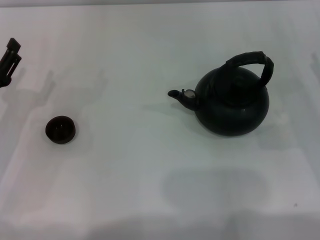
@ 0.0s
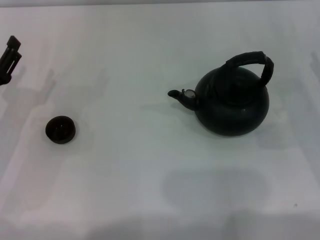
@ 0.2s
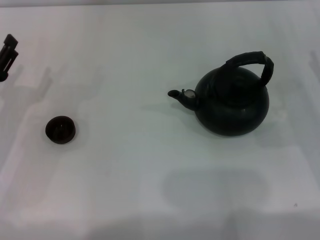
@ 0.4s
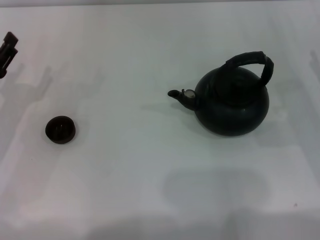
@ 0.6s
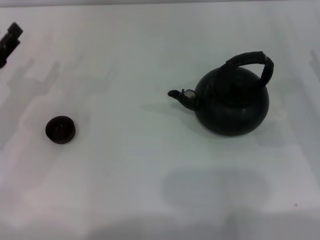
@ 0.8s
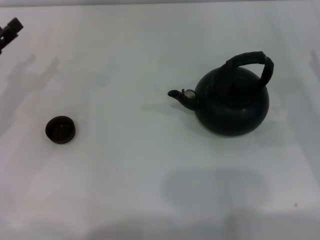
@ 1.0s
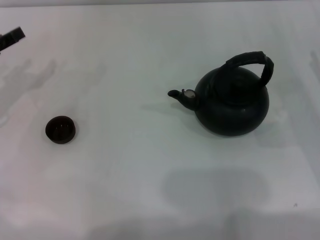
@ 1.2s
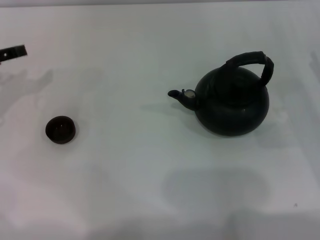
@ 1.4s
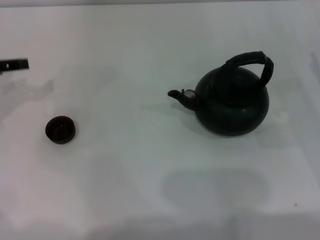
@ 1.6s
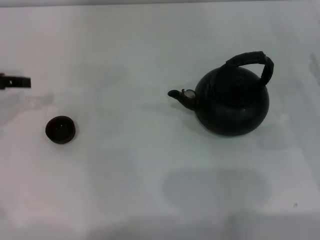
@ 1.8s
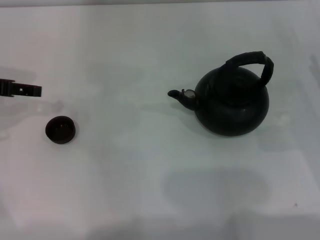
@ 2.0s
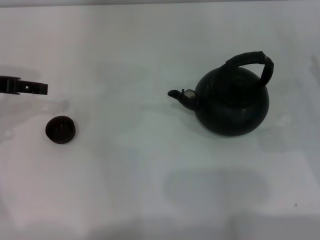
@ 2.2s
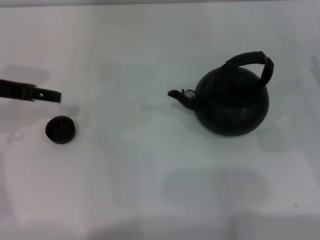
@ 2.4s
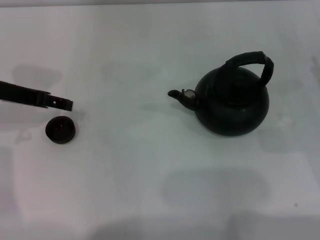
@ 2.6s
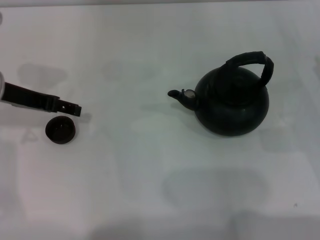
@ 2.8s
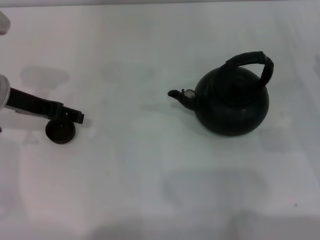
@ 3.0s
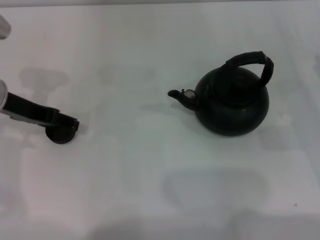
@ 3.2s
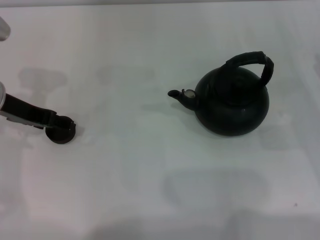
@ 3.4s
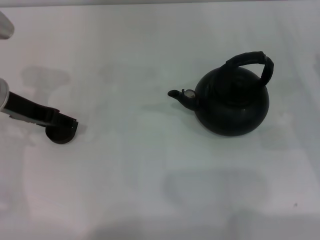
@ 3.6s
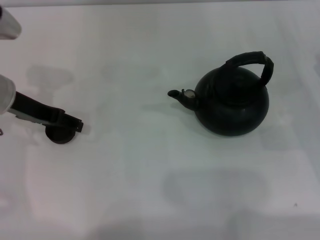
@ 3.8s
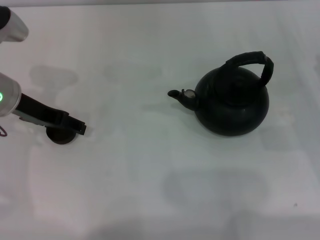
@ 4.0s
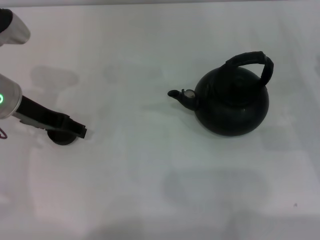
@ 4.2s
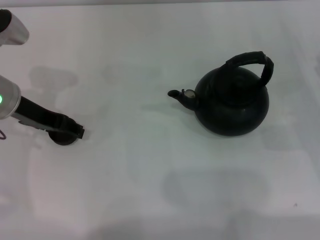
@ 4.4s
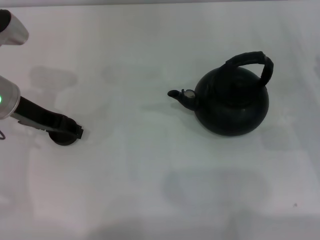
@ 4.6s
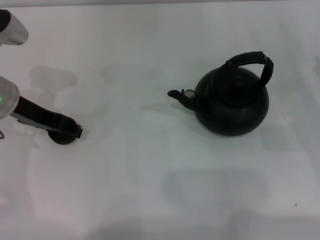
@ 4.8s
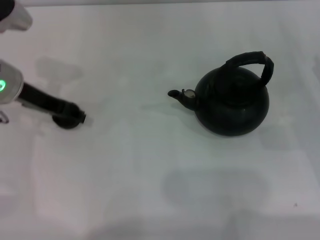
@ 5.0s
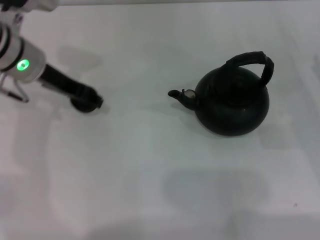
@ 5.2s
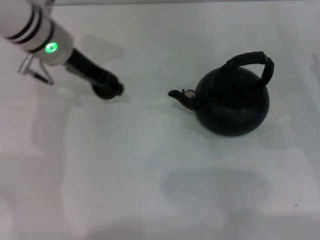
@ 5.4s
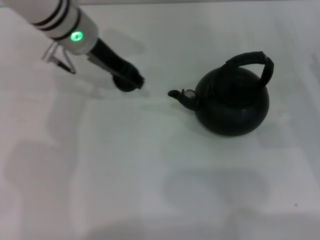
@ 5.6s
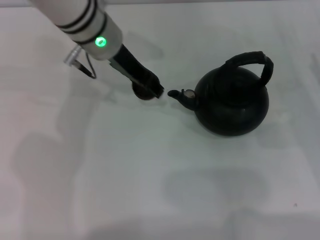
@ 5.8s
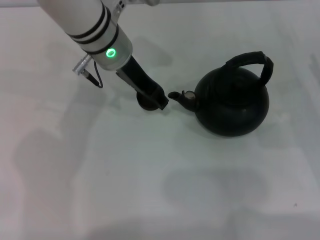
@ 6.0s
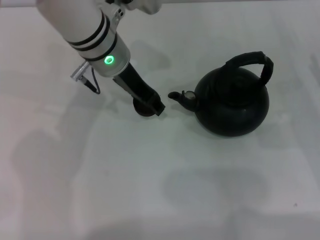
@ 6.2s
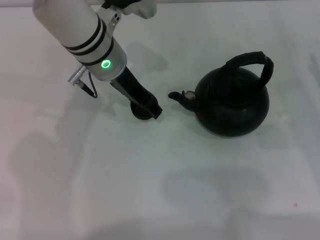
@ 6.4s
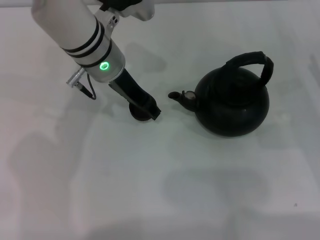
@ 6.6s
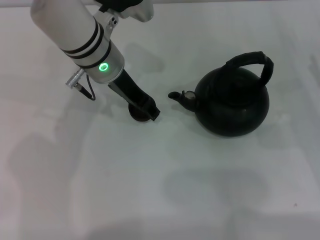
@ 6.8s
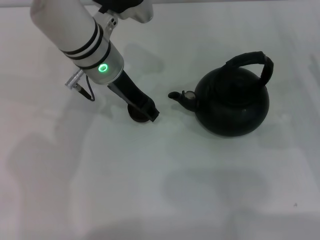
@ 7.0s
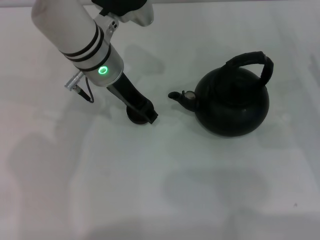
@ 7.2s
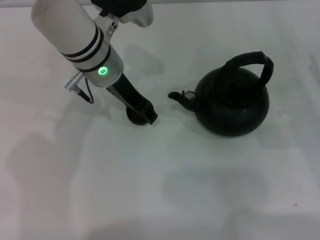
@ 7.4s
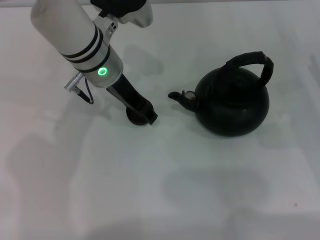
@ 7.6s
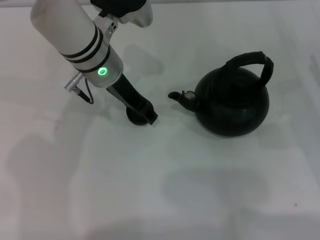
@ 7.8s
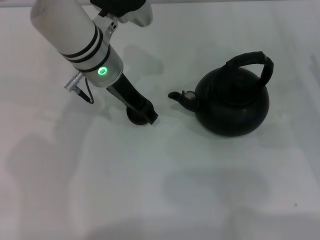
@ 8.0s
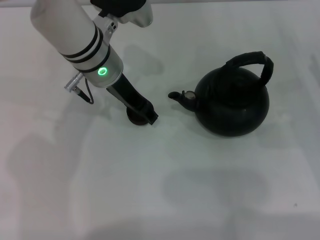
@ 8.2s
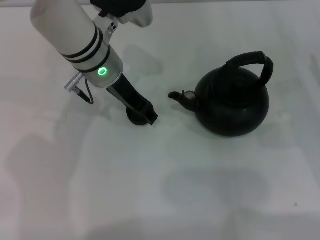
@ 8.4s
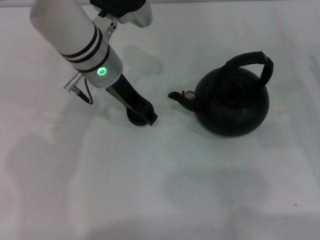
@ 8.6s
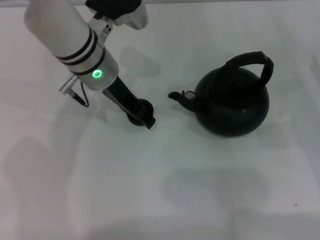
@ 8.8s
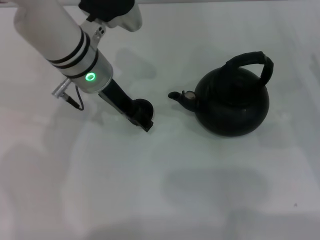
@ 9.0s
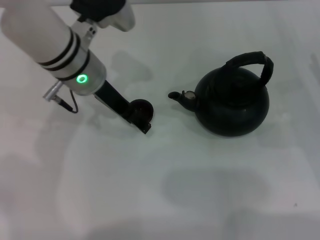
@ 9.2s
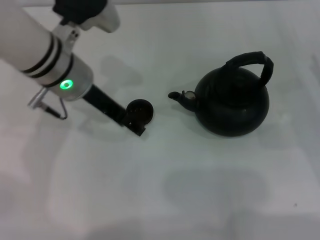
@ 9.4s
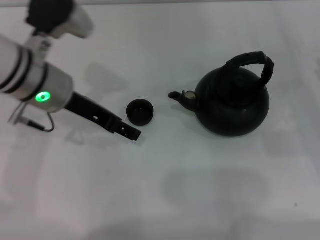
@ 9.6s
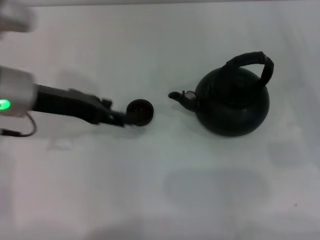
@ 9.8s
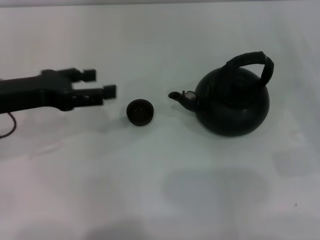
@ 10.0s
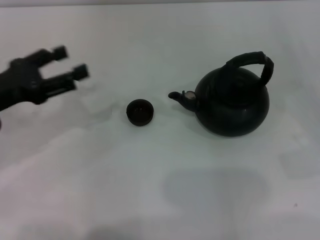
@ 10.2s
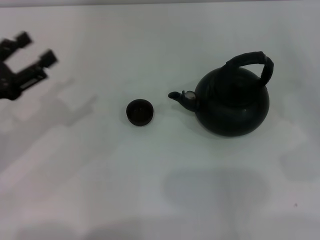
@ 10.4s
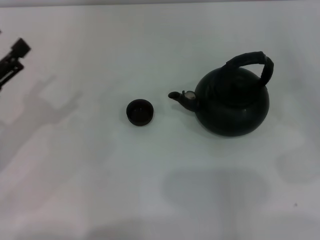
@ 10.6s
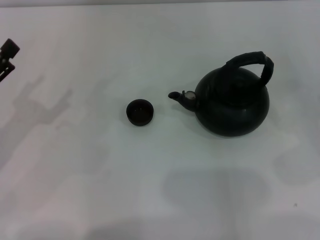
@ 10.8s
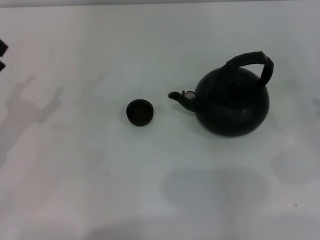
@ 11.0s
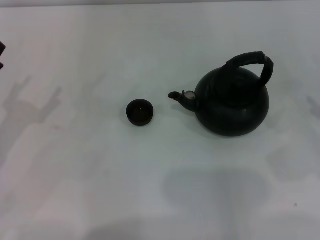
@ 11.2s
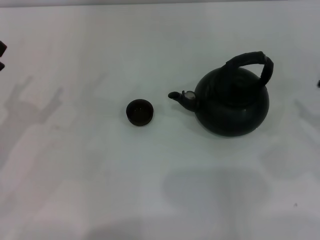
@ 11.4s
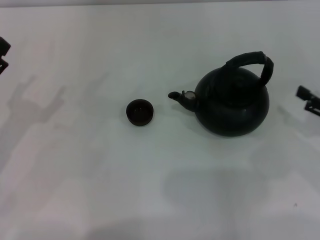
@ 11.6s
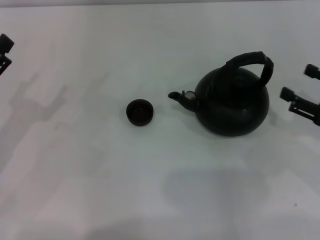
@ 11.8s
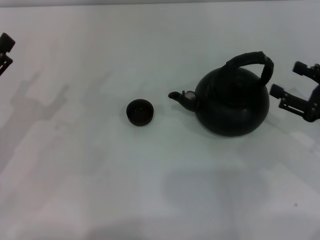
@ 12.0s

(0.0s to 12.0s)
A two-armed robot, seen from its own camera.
Task of the whole recording: Grasp the handle of the teapot with one hand and pour tea into the teacup.
Step, 0.0s - 4.8s: Pick up the teacup with the left gripper.
Step, 5.0s - 9.8s: Place the teacup in the center of view with the left gripper.
0.0s - 1.6s: The left gripper heads upward and forward, covering about 15 cm.
1.6s - 3.0s: The left gripper shifts about 10 cm to the right, and opens up.
3.0s - 4.4s: The grippers make only small movements.
4.4s - 6.0s: The left gripper is displaced to the right and forward by some 15 cm, and closes its fingers.
6.0s - 7.6s: The grippers move only a little.
7.6s - 9.0s: The left gripper opens up.
9.0s - 10.4s: The right gripper heads backward and to the right, covering roughly 10 cm; the left gripper heads to the left and backward, covering about 25 cm.
10.4s - 12.0s: The right gripper is displaced to the left by roughly 5 cm.

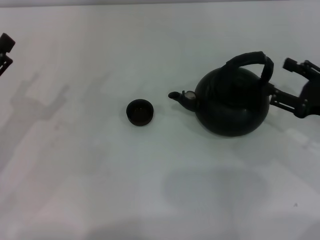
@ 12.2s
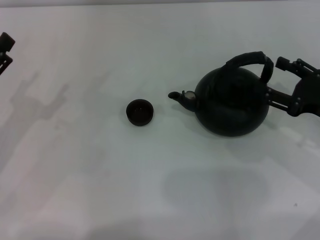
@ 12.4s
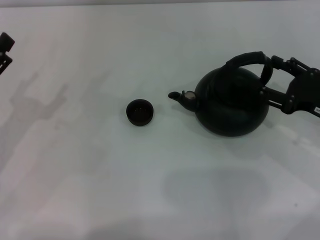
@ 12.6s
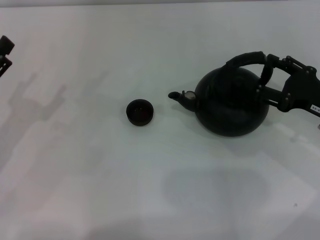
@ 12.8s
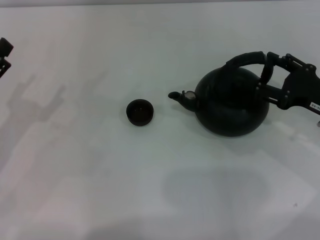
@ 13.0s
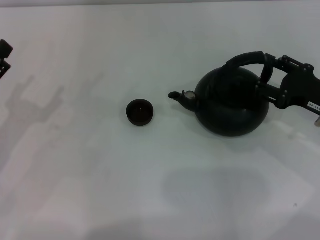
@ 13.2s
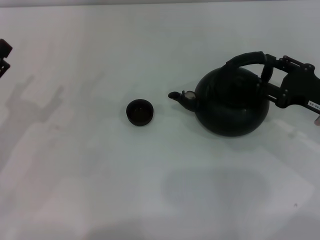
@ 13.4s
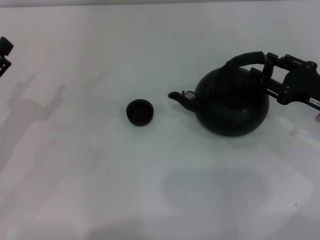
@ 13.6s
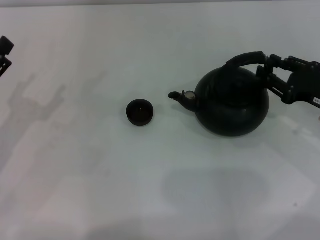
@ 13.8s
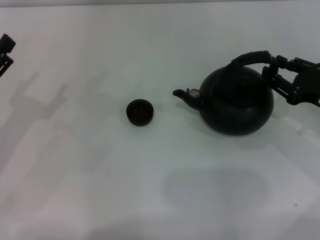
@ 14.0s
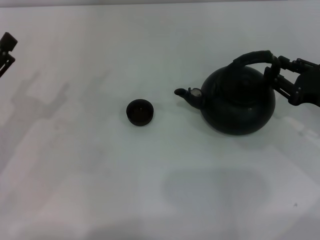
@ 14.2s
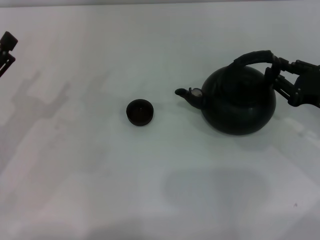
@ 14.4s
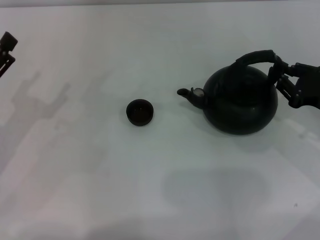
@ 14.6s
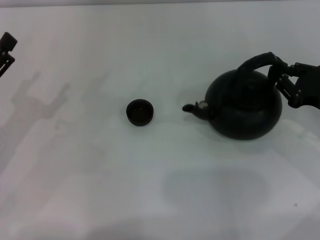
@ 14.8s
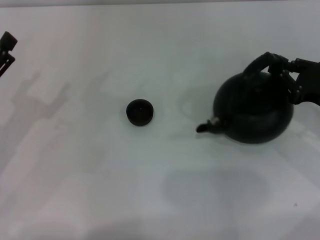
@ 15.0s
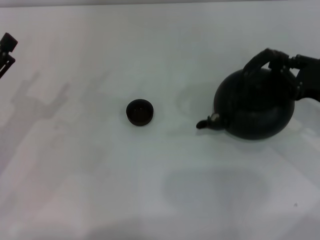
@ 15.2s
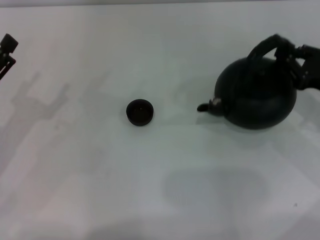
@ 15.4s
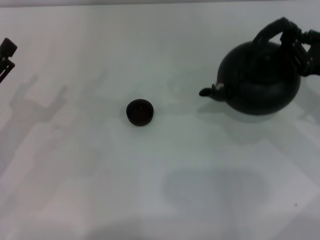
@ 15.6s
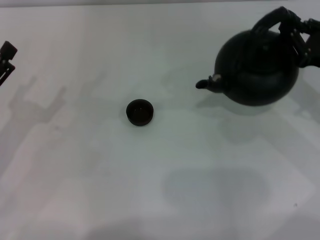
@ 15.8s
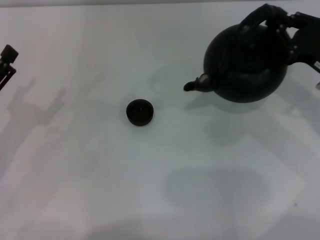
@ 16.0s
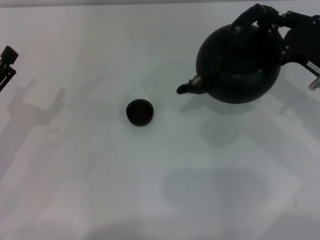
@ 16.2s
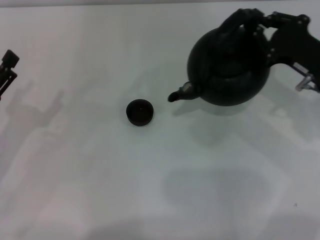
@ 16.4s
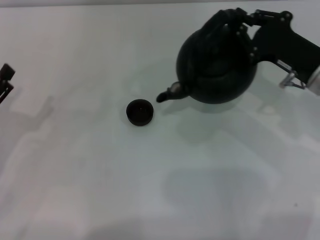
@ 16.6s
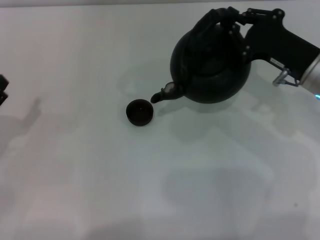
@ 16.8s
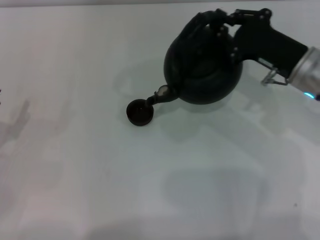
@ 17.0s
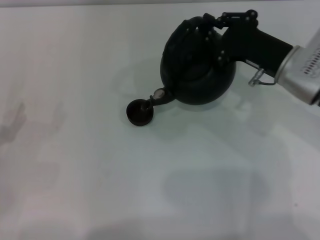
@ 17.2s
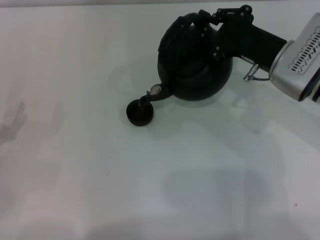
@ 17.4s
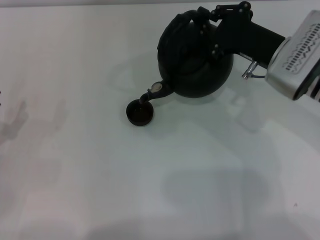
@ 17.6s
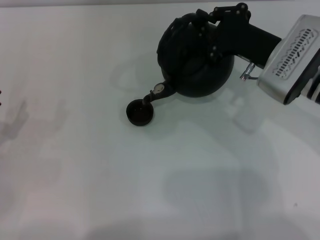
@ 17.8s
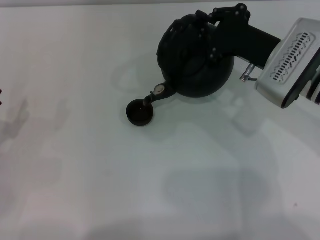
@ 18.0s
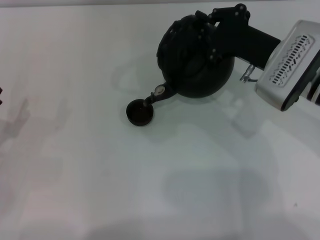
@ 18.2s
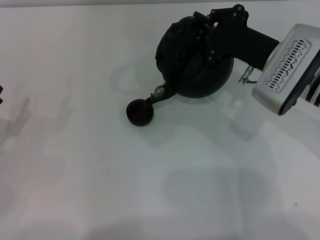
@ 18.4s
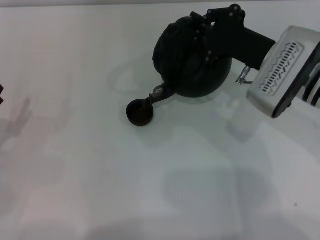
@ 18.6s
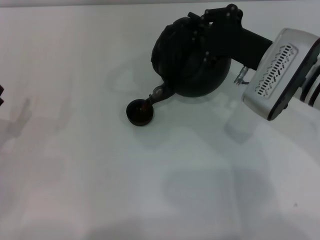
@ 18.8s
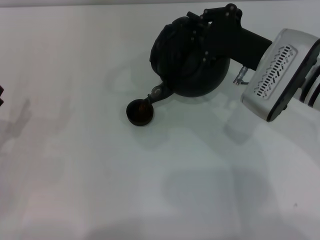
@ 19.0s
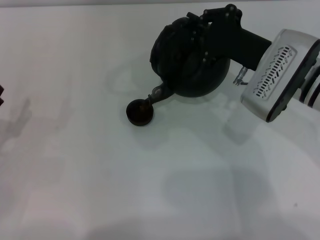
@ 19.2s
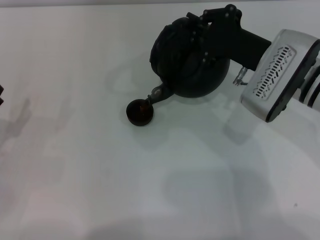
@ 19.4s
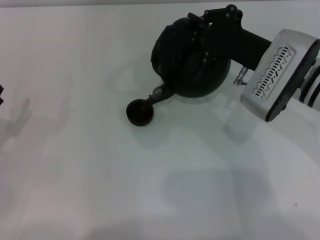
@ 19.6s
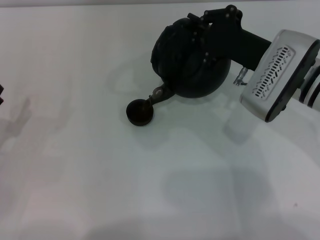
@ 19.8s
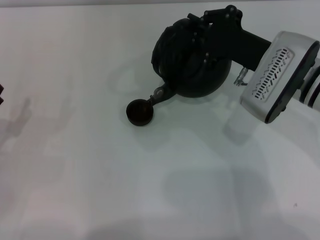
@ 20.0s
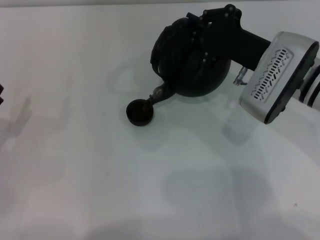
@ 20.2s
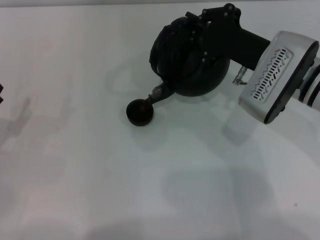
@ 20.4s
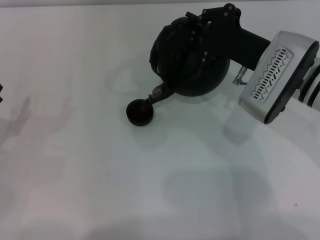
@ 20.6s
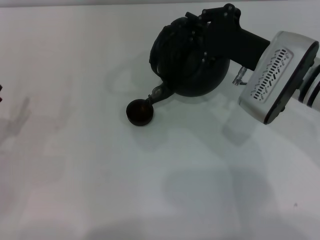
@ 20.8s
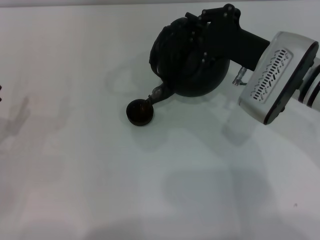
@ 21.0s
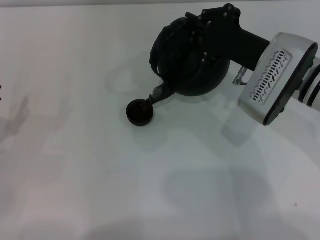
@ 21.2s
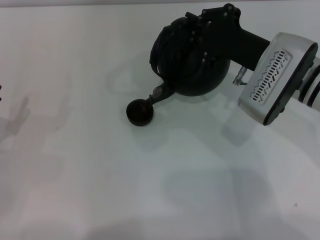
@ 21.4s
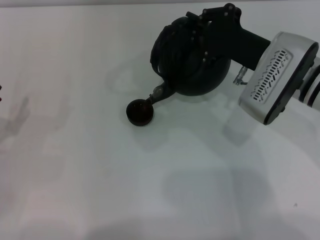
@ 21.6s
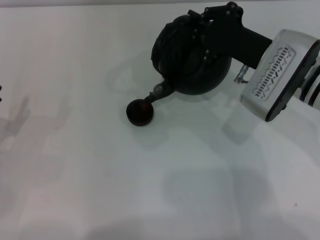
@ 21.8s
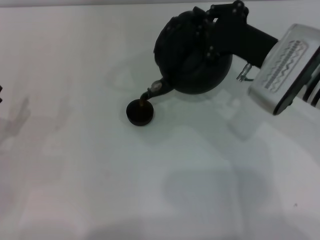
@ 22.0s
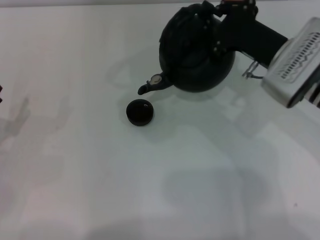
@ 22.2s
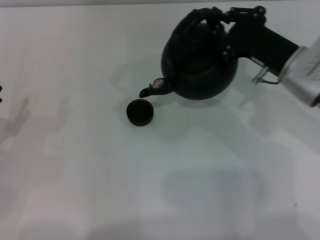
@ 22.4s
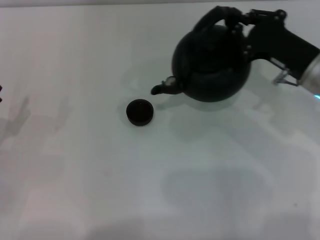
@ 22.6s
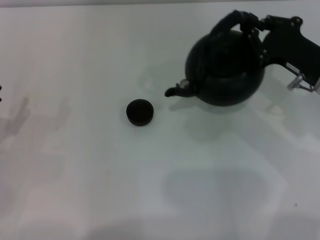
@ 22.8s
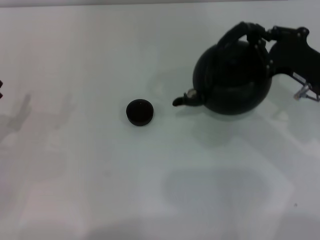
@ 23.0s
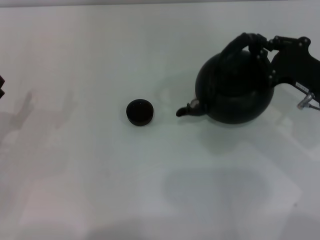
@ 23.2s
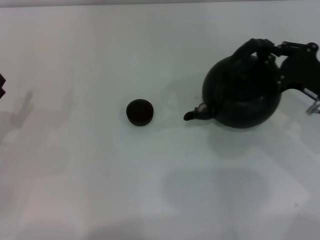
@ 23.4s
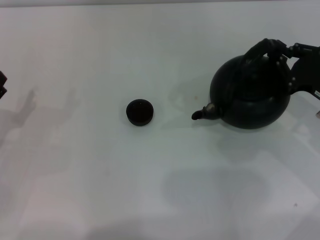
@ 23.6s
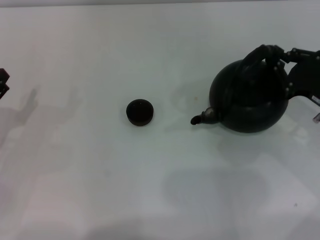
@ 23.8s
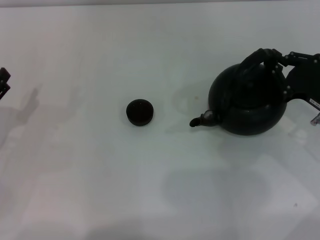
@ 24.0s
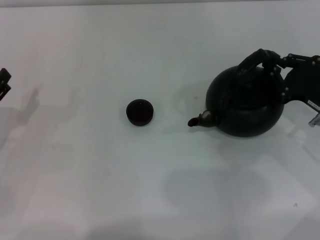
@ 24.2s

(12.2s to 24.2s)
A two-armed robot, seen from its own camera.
Task of the whole recording: Grasp the handle of the teapot with one hand and pour tea into the teacup.
Step, 12.2s - 16.2s: Pick up the teapot with the right gripper.
Step, 16.4s - 22.6s: Pour tea into the teacup with the right gripper.
12.2s - 13.8s: The grippers move only a little.
13.8s - 15.2s: The right gripper closes up.
15.2s - 16.6s: The right gripper travels to the left by some 5 cm.
16.6s - 18.2s: The right gripper shifts about 5 cm to the left.
18.2s - 19.8s: The grippers make only small movements.
19.8s - 21.2s: Neither gripper changes place.
21.2s - 22.6s: The right gripper goes about 5 cm to the right.
22.6s - 24.2s: The right gripper shifts some 5 cm to the right.
